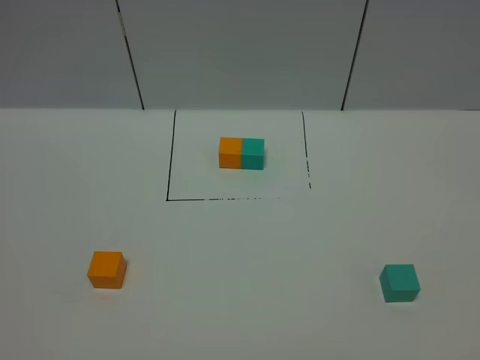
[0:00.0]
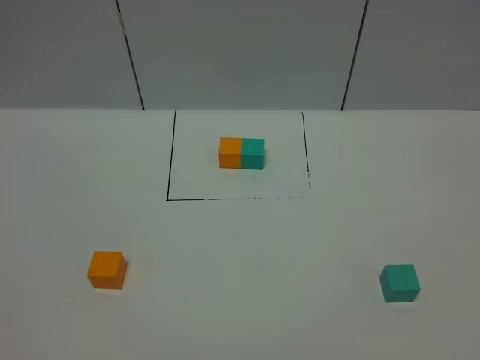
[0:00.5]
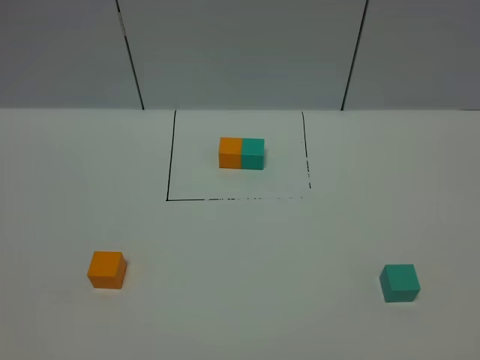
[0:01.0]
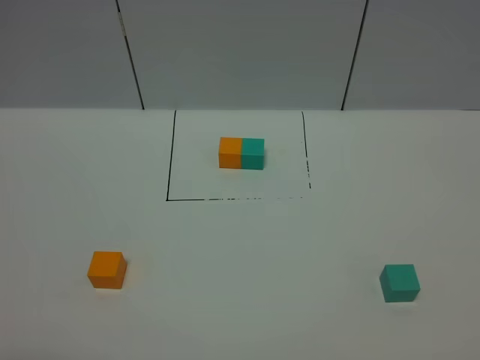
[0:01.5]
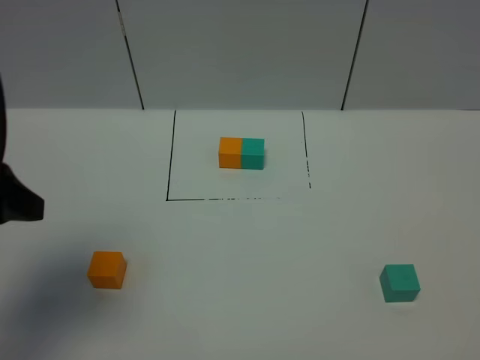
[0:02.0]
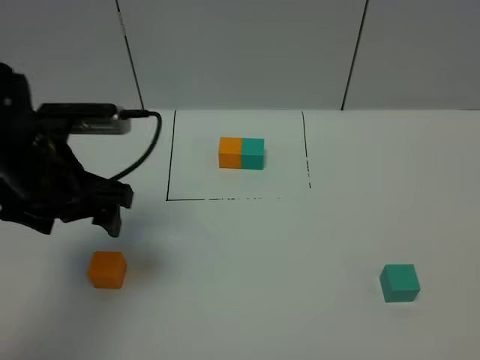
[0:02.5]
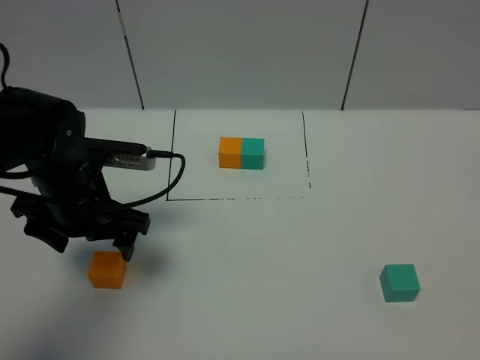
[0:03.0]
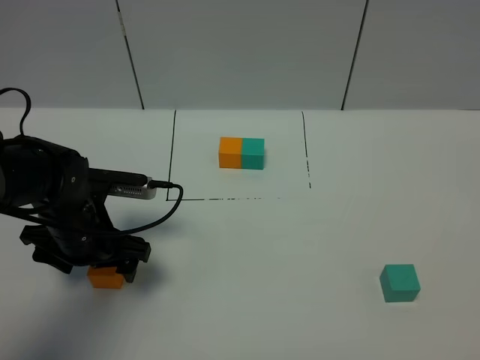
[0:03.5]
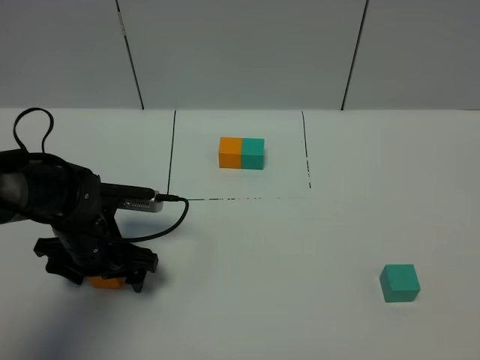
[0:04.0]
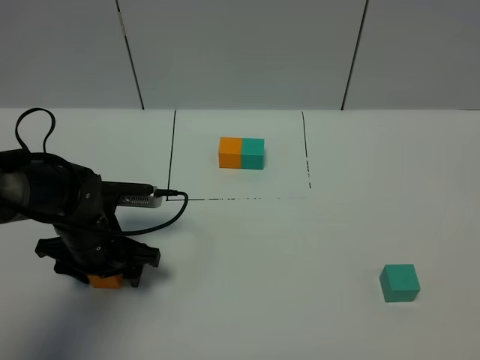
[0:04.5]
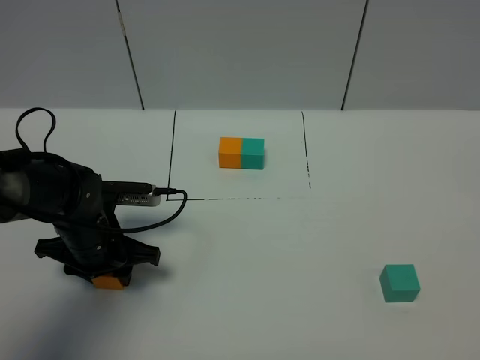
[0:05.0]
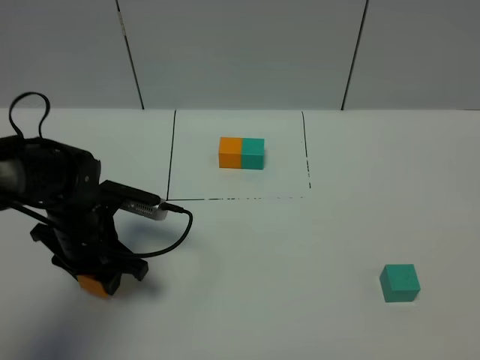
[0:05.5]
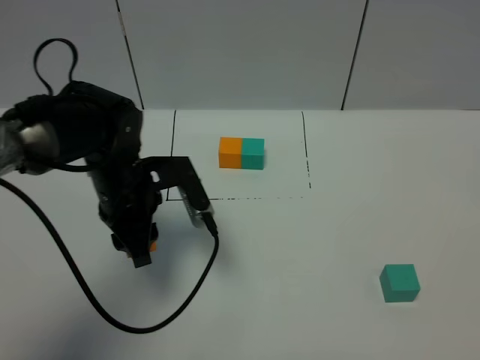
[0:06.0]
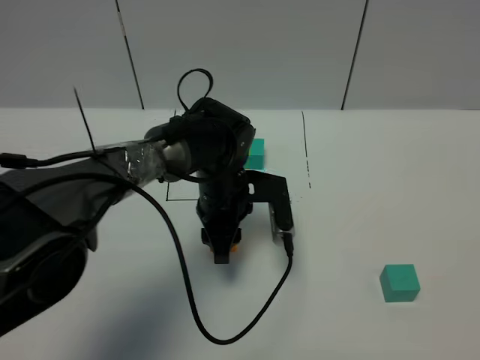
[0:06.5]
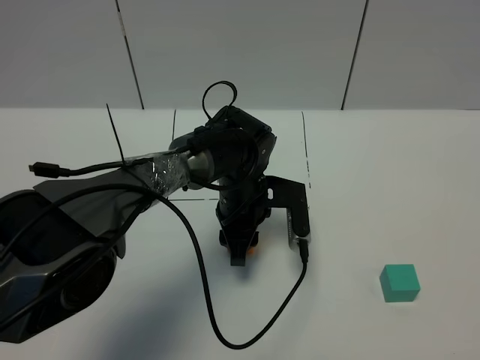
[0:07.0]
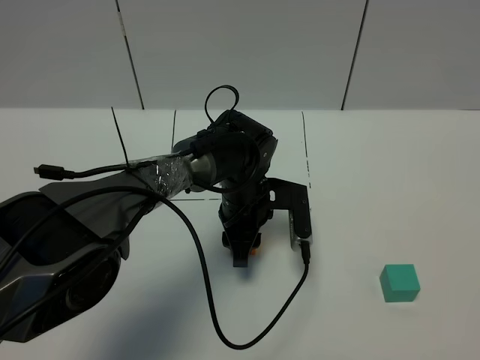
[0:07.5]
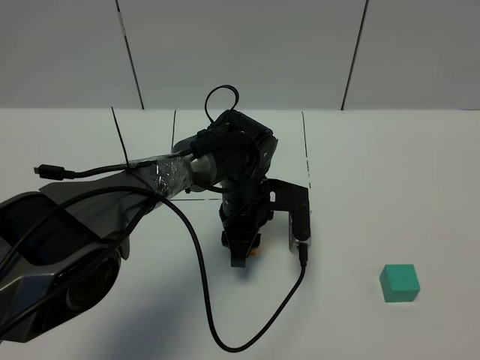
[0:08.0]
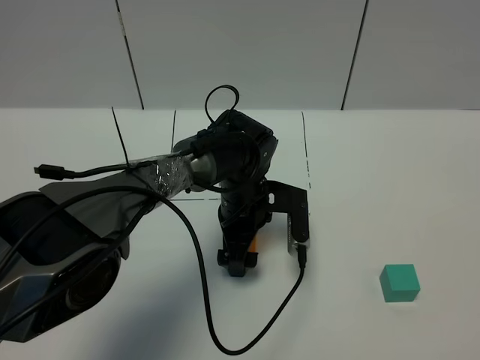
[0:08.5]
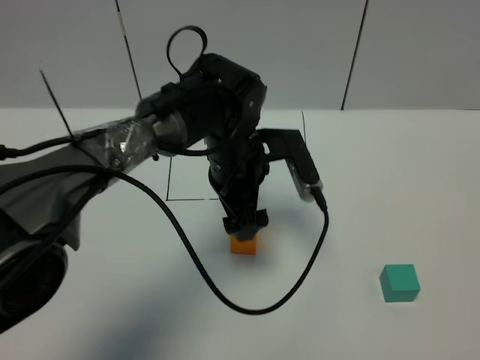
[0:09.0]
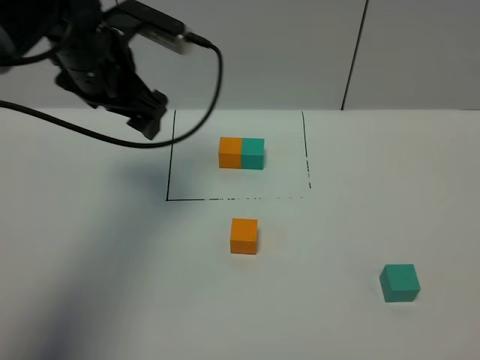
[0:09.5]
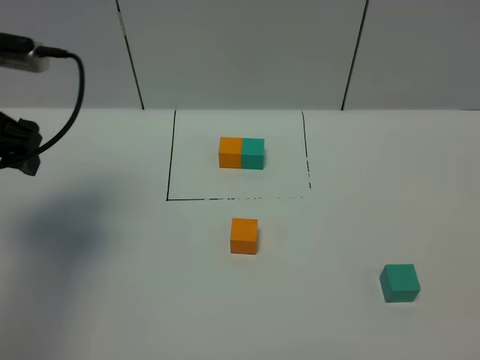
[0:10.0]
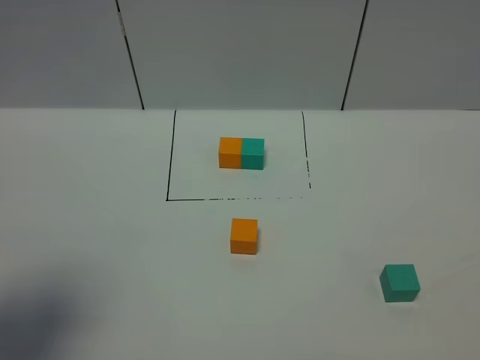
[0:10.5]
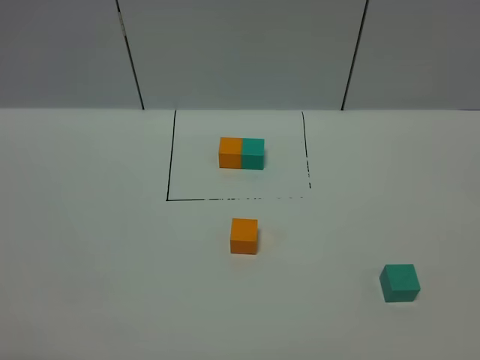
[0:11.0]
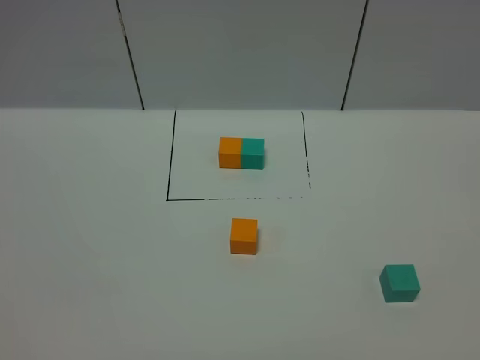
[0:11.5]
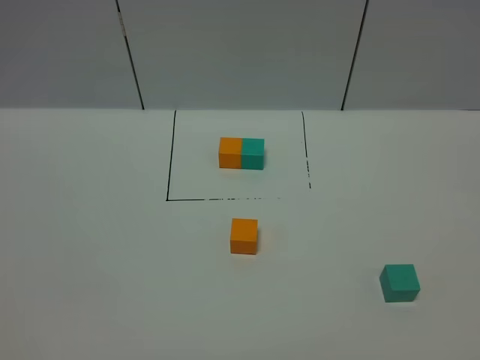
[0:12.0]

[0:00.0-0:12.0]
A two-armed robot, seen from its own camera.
Task of the whole recording: According to the building block template in front, assemble the scattered blocks together.
Step, 0:02.0 to 0:08.5: Put the orange cube in the center of the table.
0:00.0 to 0:02.0: The left gripper goes roughly 25 cm forward.
0:02.0 to 0:04.0: The left gripper moves downward and forward, some 25 cm.
0:04.0 to 0:06.0: The left gripper moves upward and to the right, about 10 cm, and closes its fingers.
0:06.0 to 0:08.0: The left gripper travels to the right and downward by approximately 15 cm.
0:08.0 to 0:10.0: The left gripper shifts roughly 35 cm to the left and upward, and opens.
0:10.0 to 0:12.0: The left gripper heads backward, covering some 35 cm.

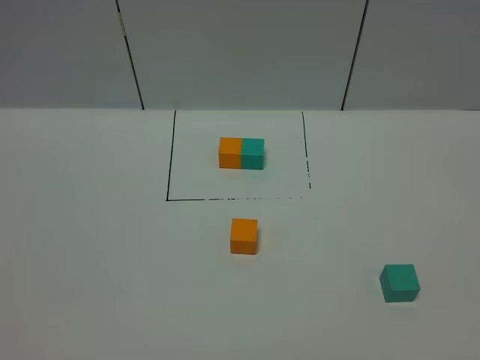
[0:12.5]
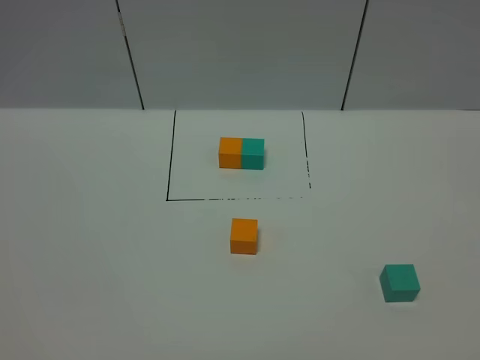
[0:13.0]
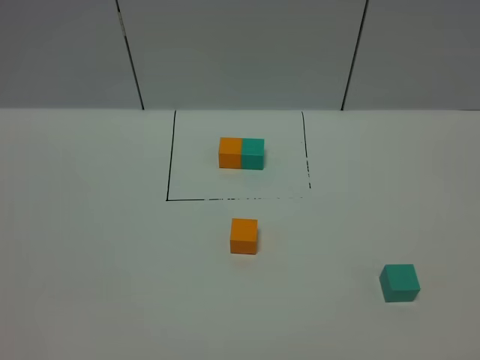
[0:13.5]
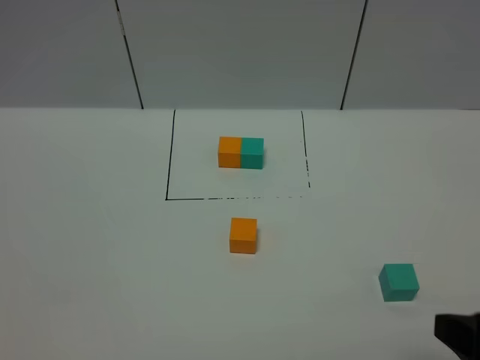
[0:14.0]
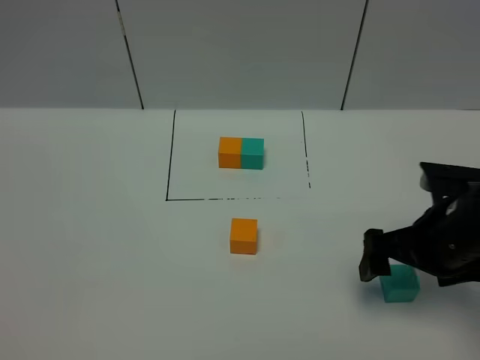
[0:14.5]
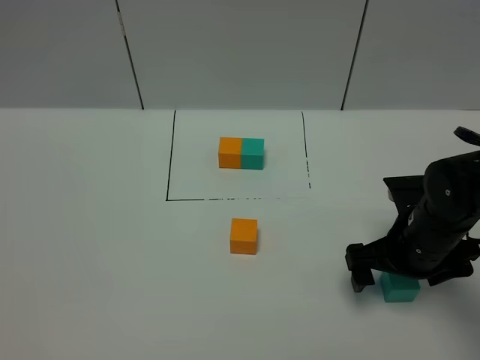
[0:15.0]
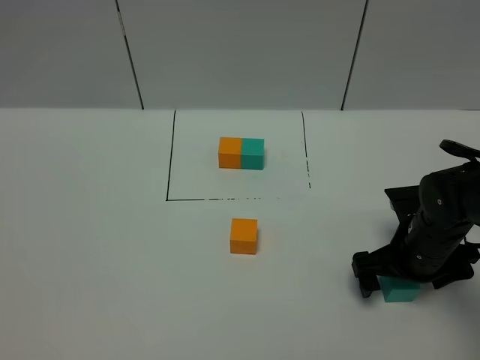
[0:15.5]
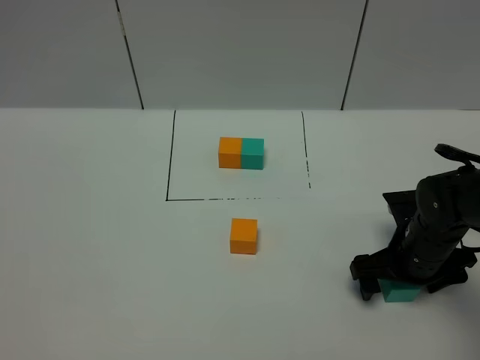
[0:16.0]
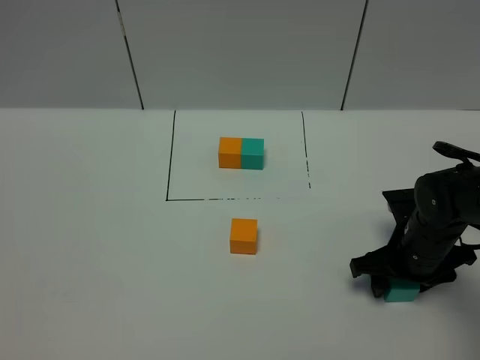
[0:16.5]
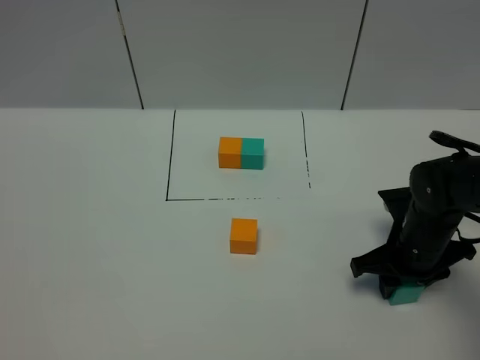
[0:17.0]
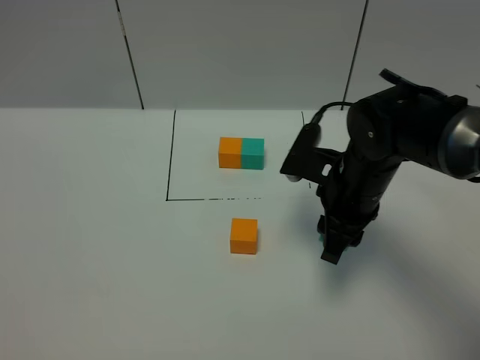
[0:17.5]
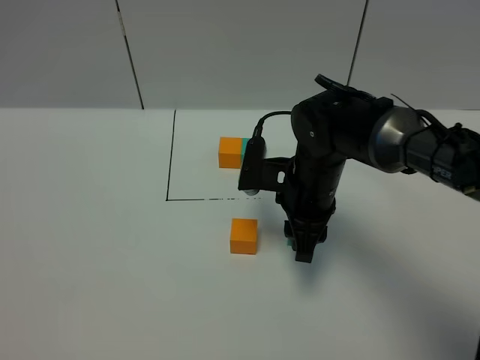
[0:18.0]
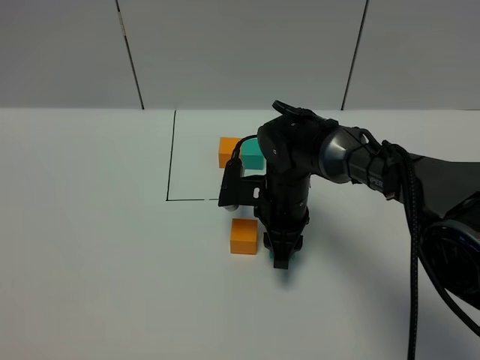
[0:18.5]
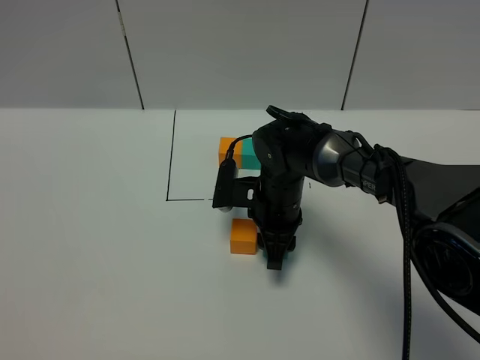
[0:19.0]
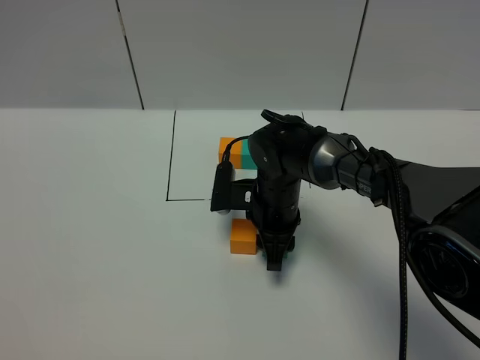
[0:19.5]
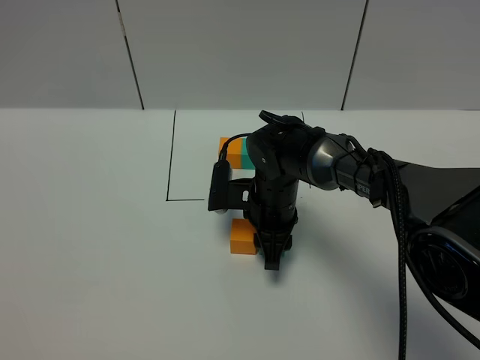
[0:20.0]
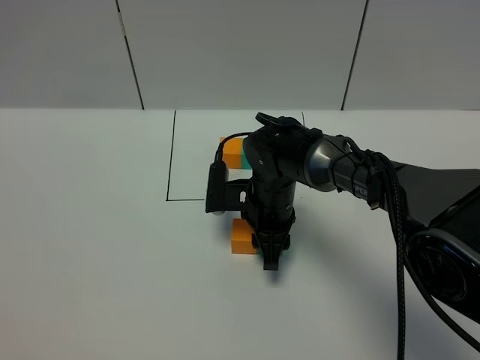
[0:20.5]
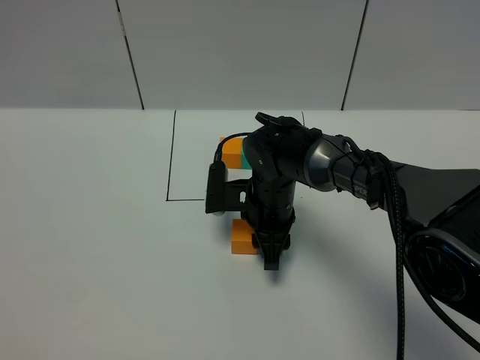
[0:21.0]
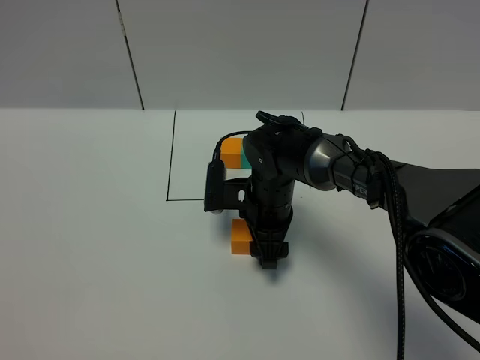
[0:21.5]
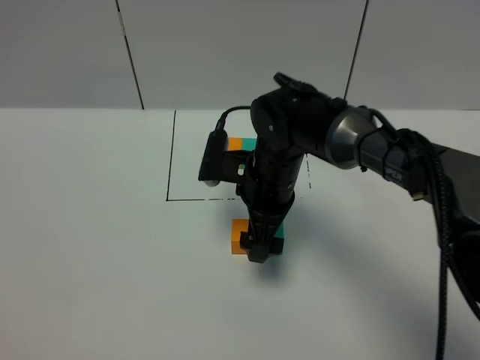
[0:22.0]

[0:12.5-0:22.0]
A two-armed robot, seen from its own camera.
Task of the whole recording: According to the building block template in front, assemble the scattered blocks together.
Step, 0:12.5 to 0:21.5: Put the green cube on the right of the orange cube.
0:12.5 to 0:14.5: The right gripper heads forward, covering about 30 cm.
0:14.5 to 0:16.5: The right gripper goes approximately 10 cm downward, and closes its fingers.
0:16.5 to 0:18.0: The right gripper goes about 15 cm to the left, forward and upward.
0:18.0 to 0:20.0: The right gripper is displaced downward by roughly 5 cm.
0:20.0 to 0:22.0: The right gripper is displaced upward by about 10 cm, and opens up.

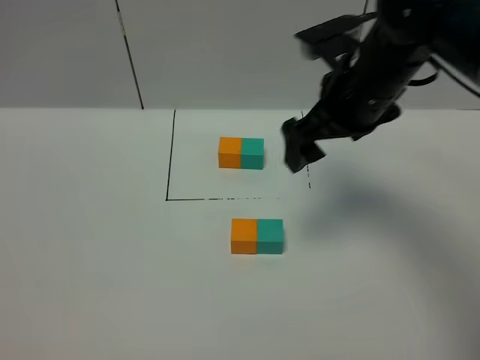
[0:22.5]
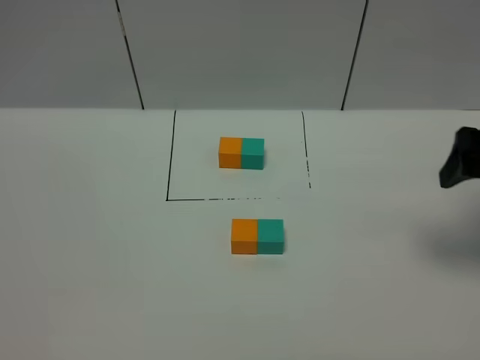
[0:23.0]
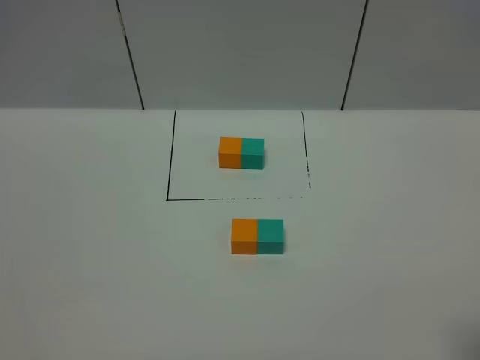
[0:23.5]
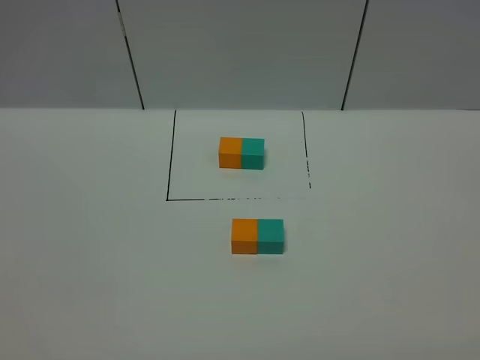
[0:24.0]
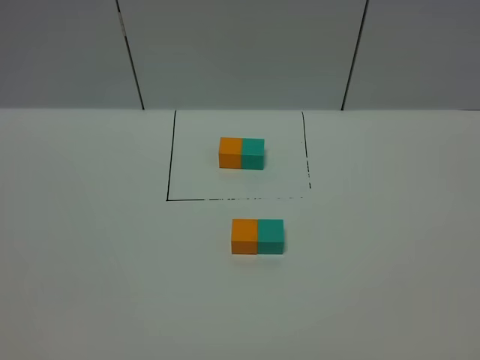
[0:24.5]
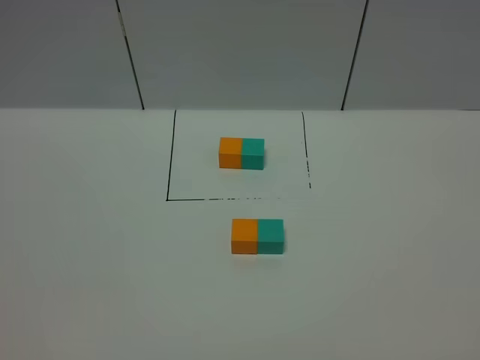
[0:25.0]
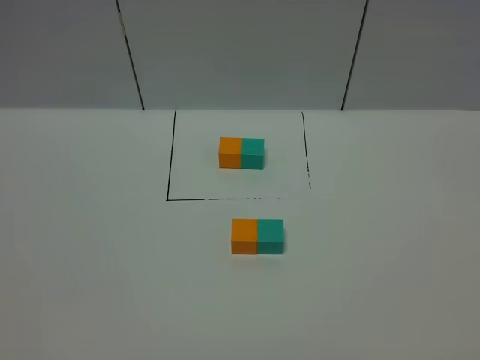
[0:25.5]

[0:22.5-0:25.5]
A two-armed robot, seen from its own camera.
Task of the whole recording: According to the building block template in front, assemble the scattered blocks together.
0:22.5 to 0:24.0: The right gripper shifts some 35 cm backward.
